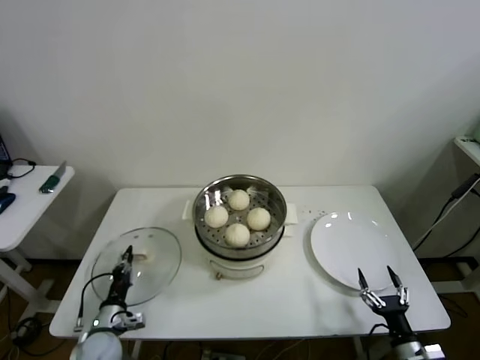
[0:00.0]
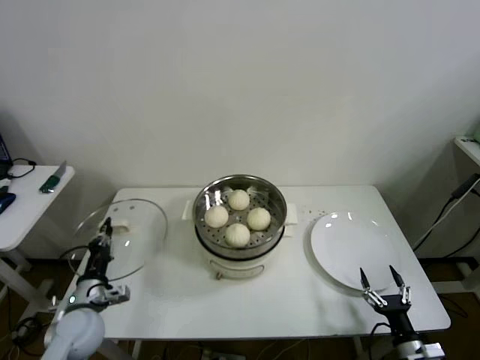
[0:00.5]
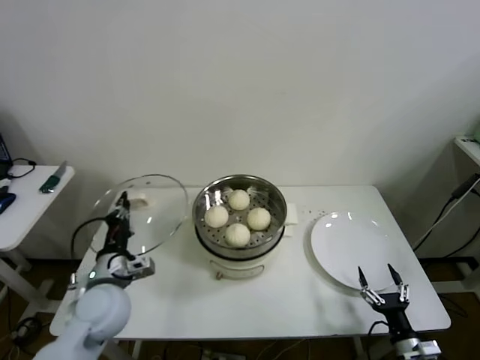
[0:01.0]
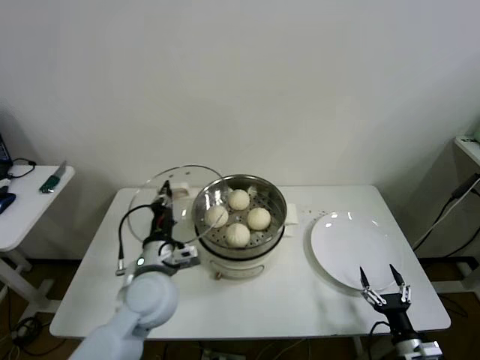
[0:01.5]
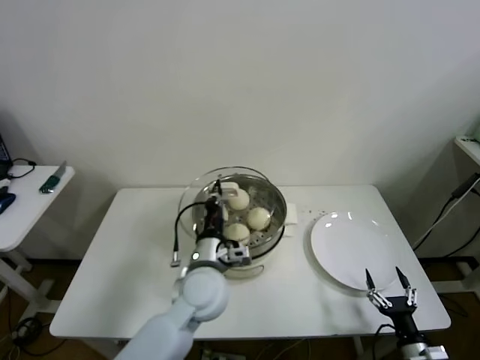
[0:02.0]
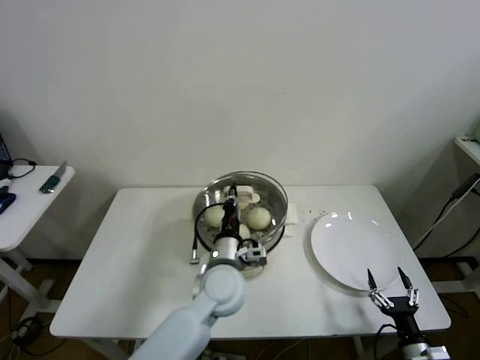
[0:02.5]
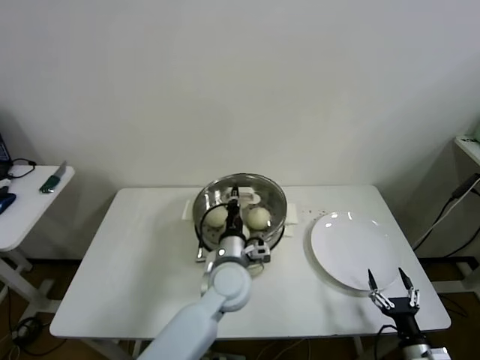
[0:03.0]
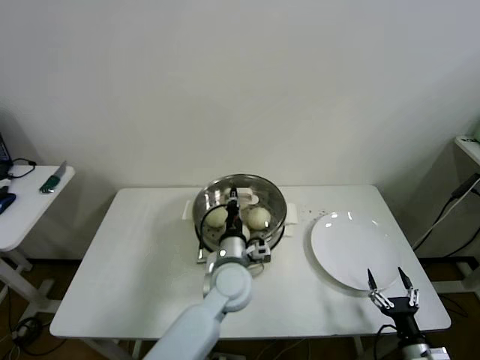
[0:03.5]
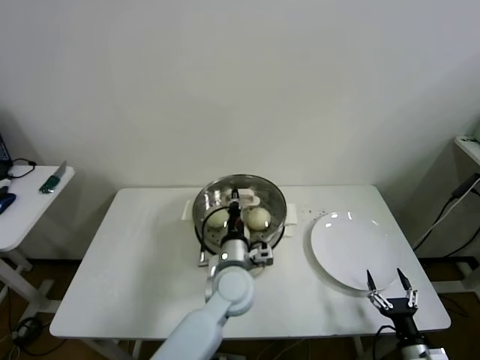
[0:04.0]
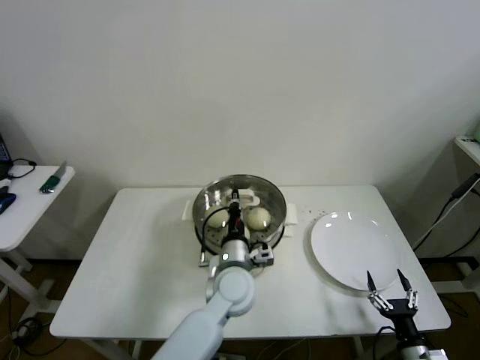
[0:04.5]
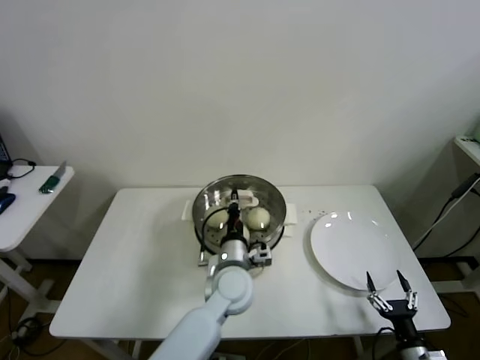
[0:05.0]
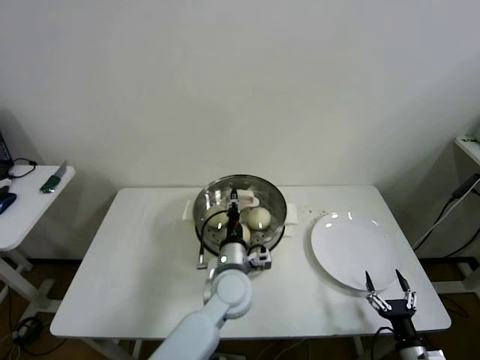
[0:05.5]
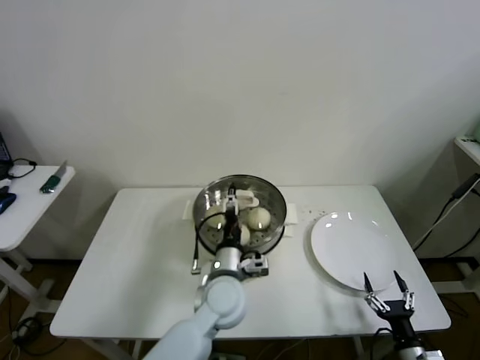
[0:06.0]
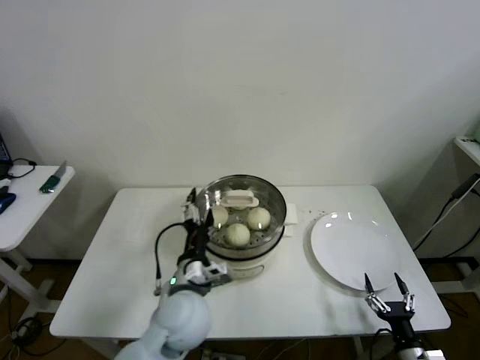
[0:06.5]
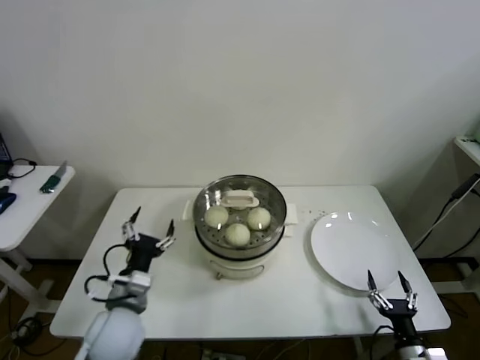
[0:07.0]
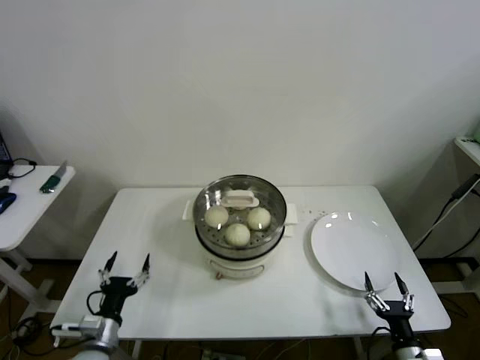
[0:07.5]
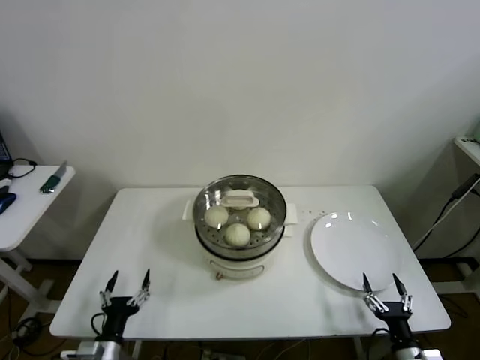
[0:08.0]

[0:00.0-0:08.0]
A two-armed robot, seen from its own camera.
Step, 0:00.0 to 0:05.0: Place the pot lid on the steamer with left gripper.
0:00.0 to 0:02.0: The left gripper goes about 35 cm to the right and upward.
0:02.0 to 0:04.0: The left gripper travels to the right by about 5 cm.
0:04.0 to 0:06.0: The left gripper opens up.
0:06.0 to 0:08.0: The left gripper heads to the left, backward and downward, covering about 35 cm.
